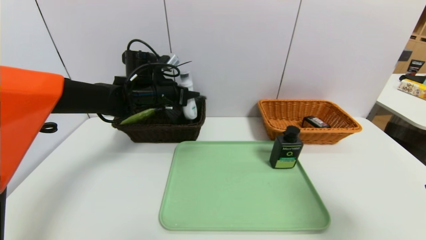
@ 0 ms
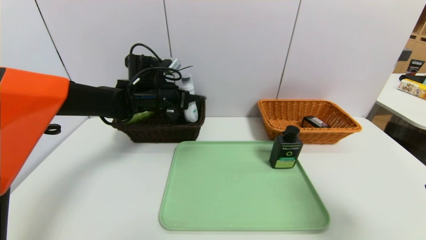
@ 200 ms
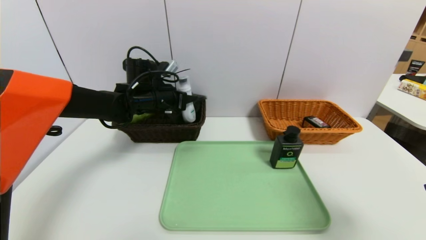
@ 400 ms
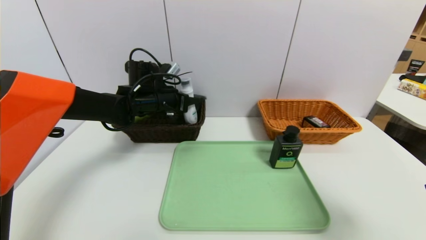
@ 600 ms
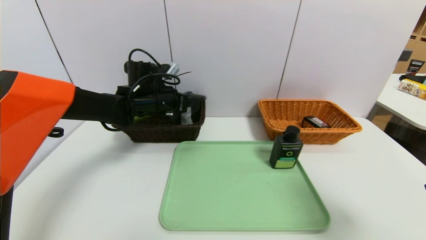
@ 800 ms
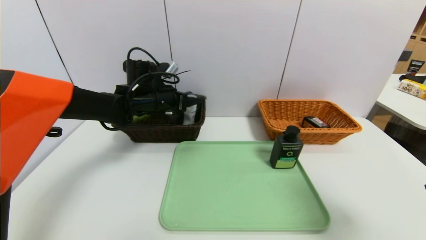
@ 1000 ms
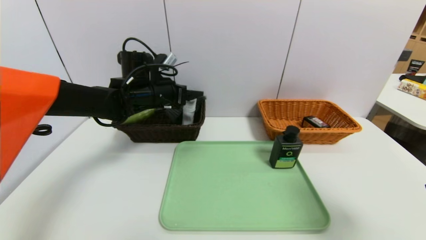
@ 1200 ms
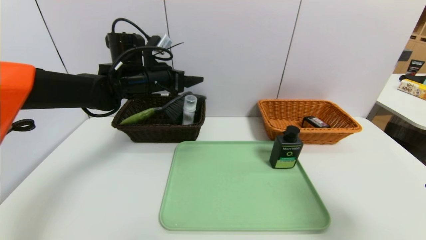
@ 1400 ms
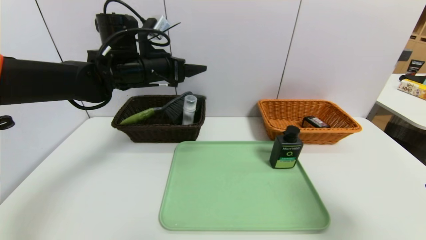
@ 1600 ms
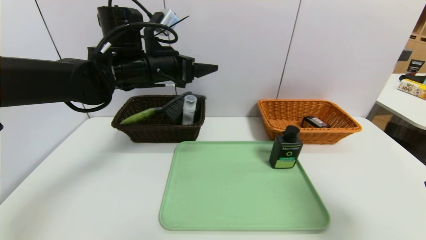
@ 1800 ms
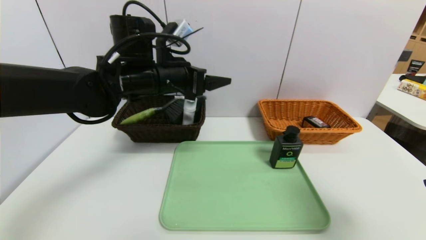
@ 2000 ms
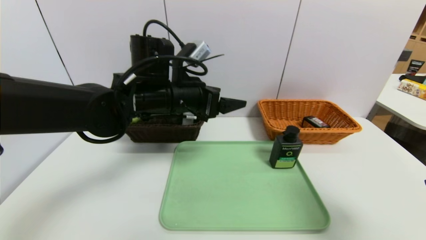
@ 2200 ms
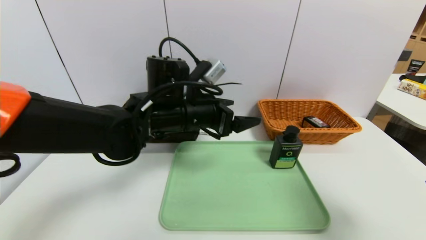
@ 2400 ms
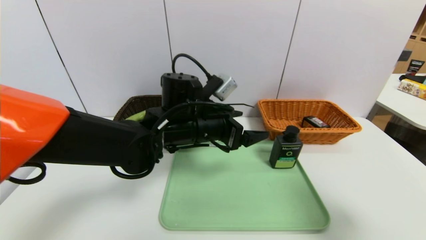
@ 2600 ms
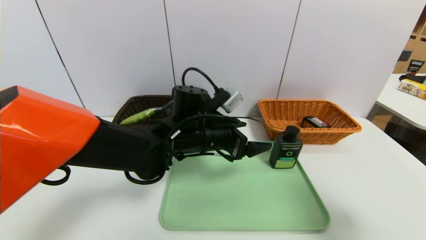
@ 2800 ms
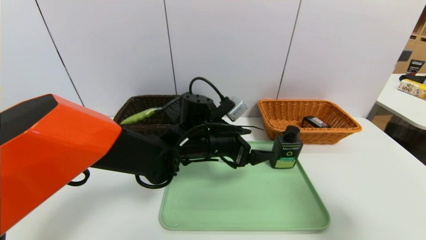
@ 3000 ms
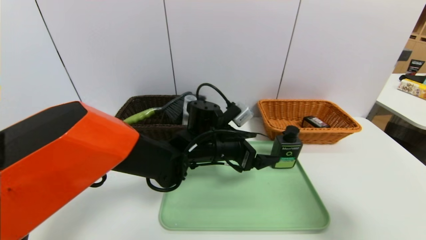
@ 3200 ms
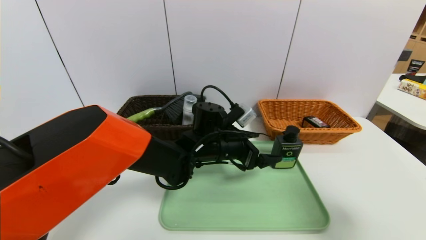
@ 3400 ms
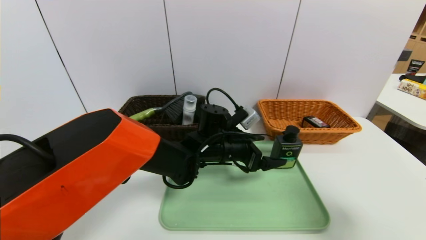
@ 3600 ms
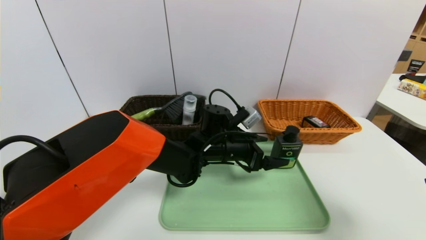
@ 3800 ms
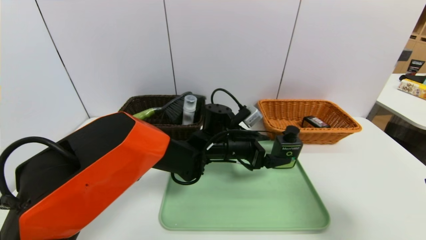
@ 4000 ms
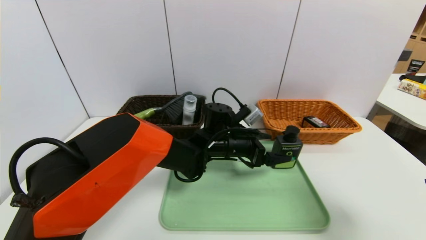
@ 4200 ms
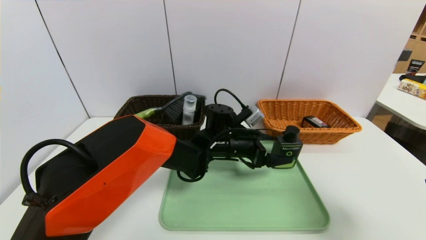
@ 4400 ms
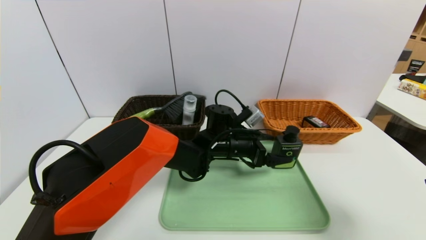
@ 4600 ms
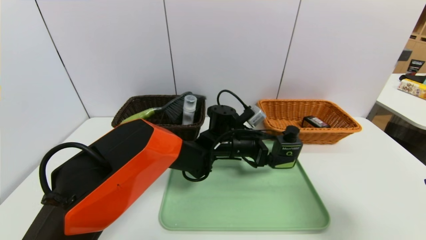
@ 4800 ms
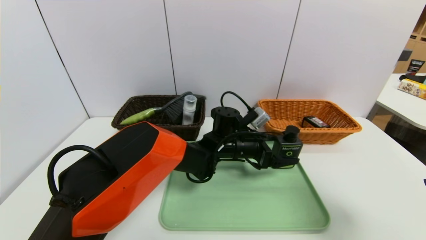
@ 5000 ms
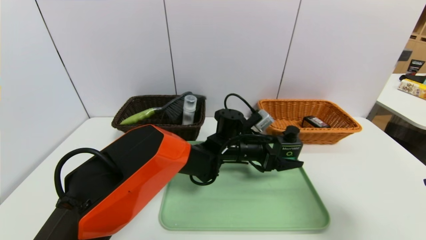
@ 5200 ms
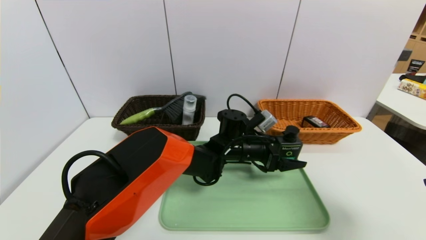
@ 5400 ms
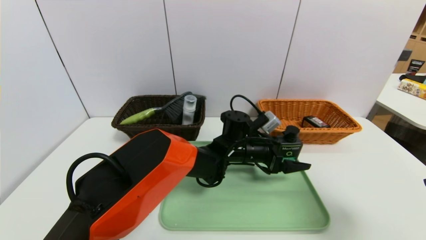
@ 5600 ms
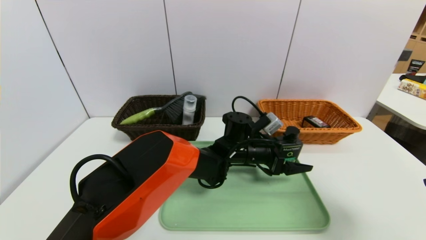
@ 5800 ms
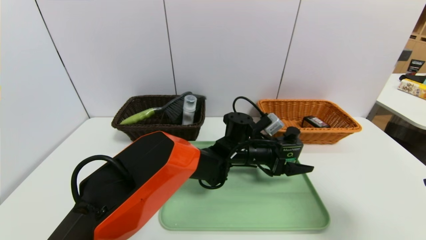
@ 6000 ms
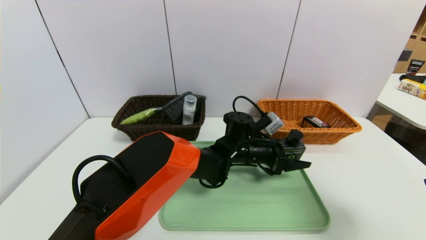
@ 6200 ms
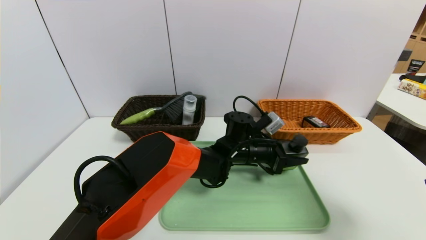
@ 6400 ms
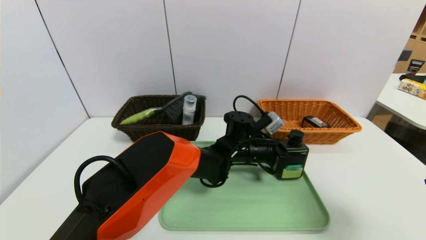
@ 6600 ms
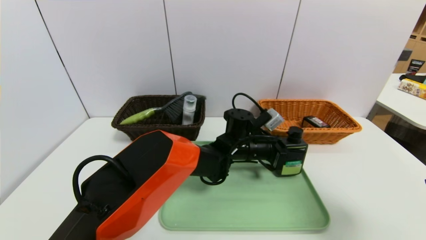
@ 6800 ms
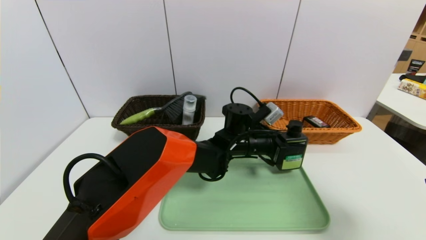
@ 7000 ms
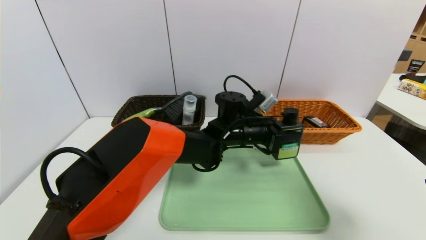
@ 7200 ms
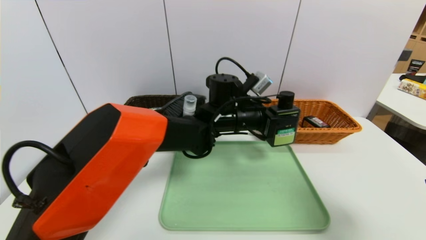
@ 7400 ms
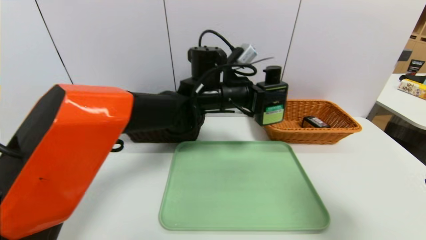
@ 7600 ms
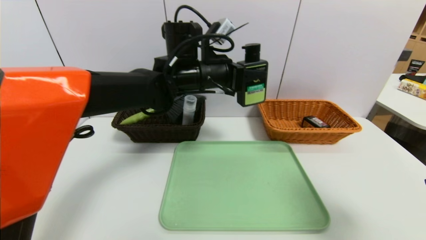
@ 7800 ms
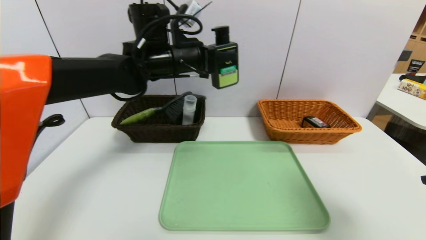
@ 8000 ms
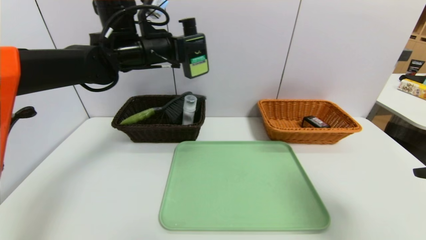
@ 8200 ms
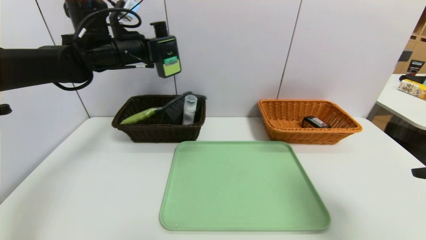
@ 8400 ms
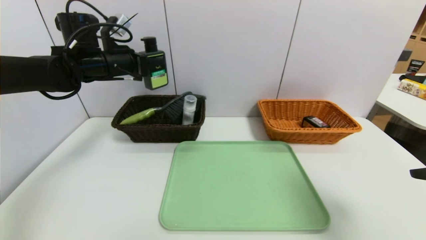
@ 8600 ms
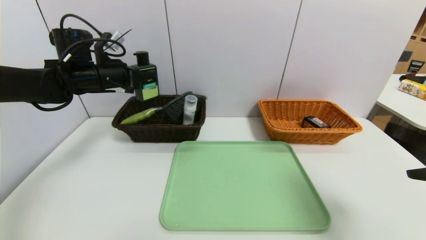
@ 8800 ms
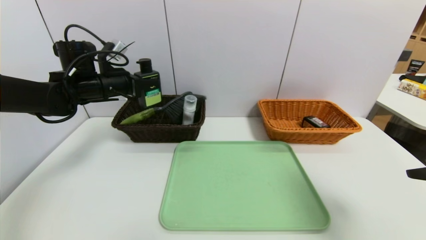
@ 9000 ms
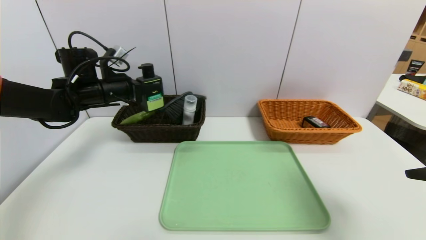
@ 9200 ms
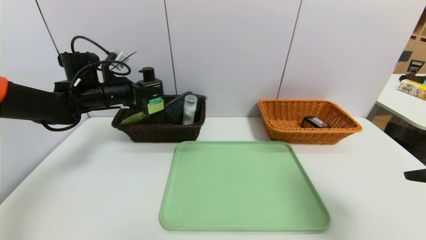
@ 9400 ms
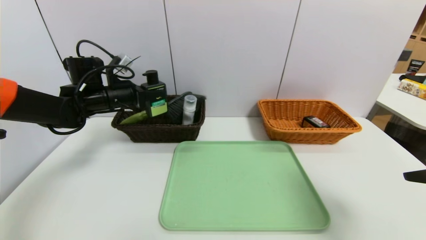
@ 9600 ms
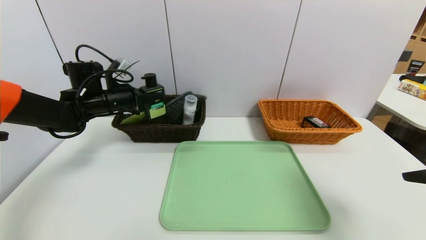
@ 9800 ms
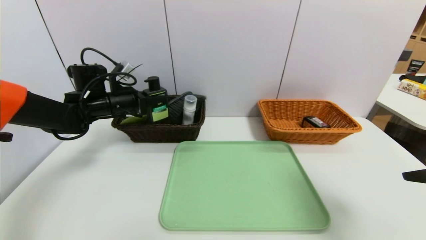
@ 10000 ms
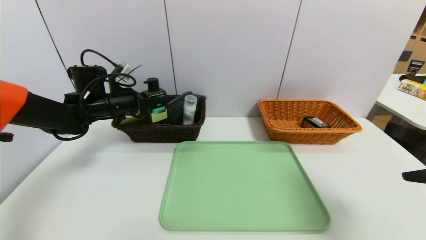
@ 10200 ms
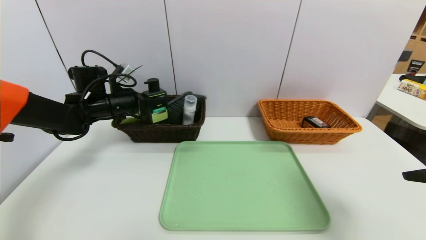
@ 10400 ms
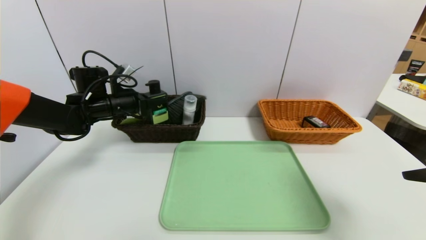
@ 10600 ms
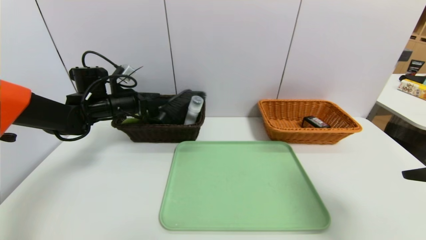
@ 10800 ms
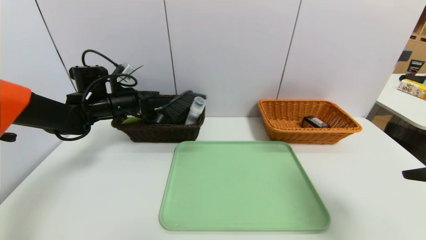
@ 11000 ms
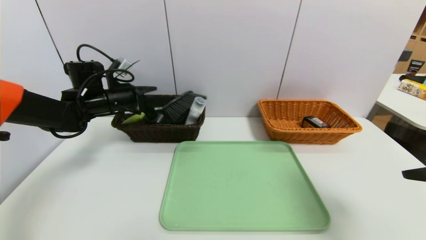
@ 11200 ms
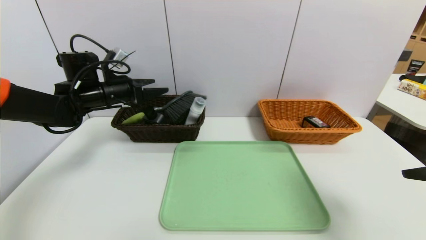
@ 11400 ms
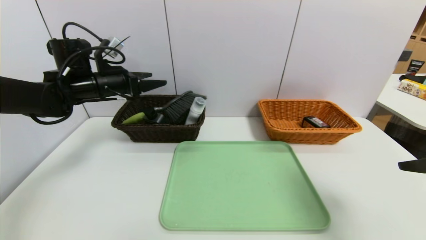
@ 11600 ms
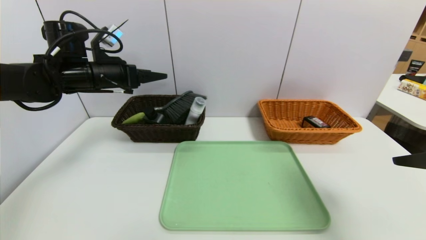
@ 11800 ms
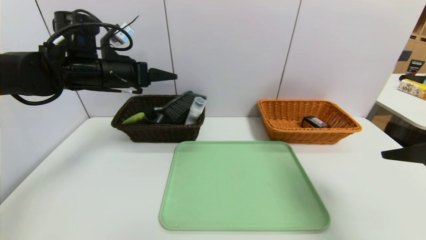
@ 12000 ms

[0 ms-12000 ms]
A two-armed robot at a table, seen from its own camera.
Task of the whole recording: place the food in the right basket with the right gripper, and place the non food items in the left basket with the left gripper.
Step, 1400 ms to 11400 ms: Grasp the hard cleanser and put it in the left basket.
0 ms to 1600 ms: The left gripper goes roughly 5 cm upward, and opens.
1600 ms to 3000 ms: The left gripper is displaced to the right, downward and backward by about 20 cm.
3000 ms to 4400 ms: The left gripper is displaced to the right by some 5 cm.
4400 ms to 6000 ms: The left gripper shifts by roughly 5 cm.
6000 ms to 7600 ms: The left gripper is displaced upward and to the left by roughly 15 cm, and closes up.
7600 ms to 9000 ms: The left gripper shifts about 25 cm to the left.
9000 ms to 10400 ms: The left gripper shifts approximately 5 cm downward.
10400 ms to 12000 ms: The left gripper heads upward and backward, covering about 10 cm, and opens up.

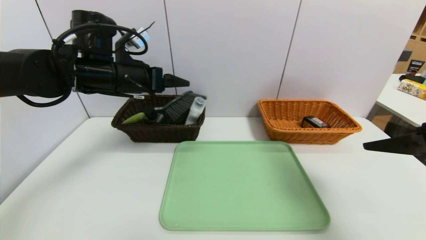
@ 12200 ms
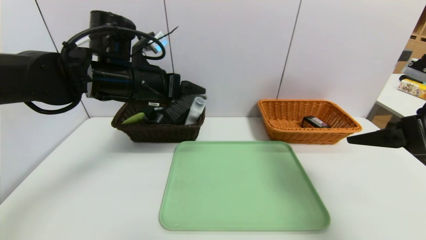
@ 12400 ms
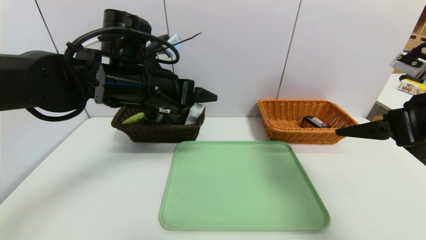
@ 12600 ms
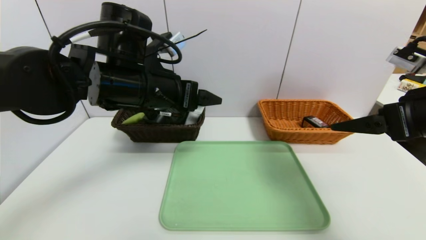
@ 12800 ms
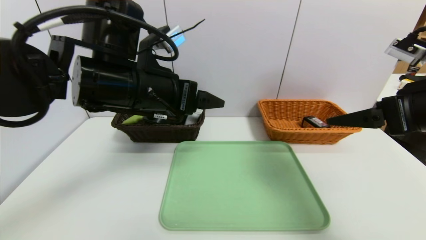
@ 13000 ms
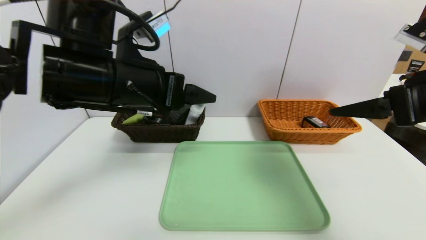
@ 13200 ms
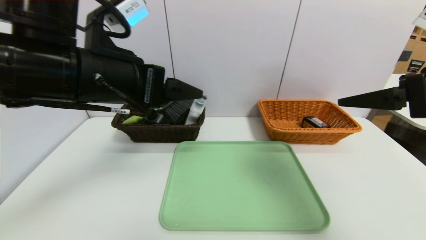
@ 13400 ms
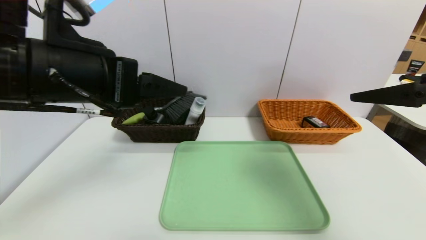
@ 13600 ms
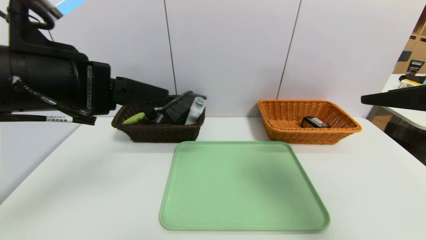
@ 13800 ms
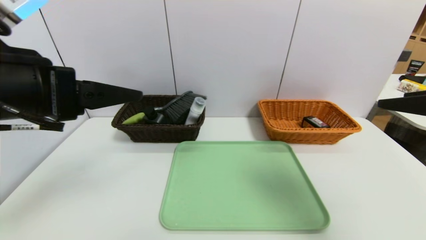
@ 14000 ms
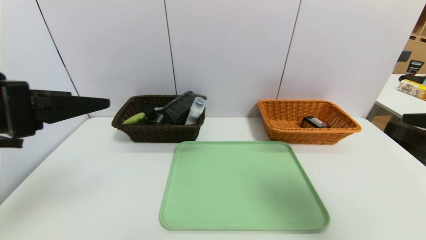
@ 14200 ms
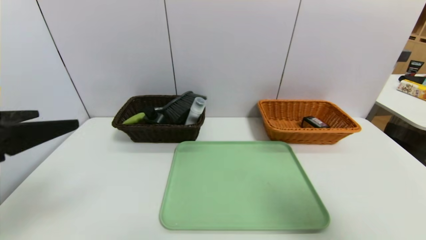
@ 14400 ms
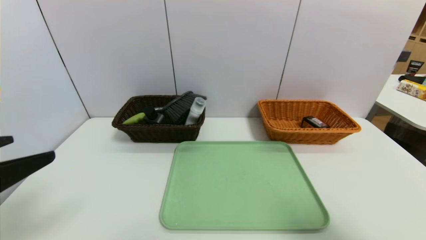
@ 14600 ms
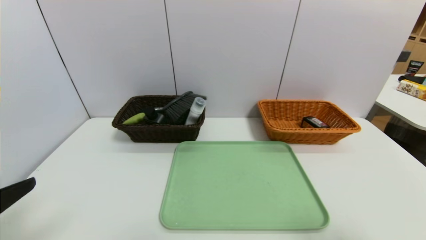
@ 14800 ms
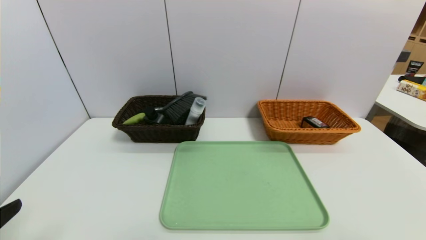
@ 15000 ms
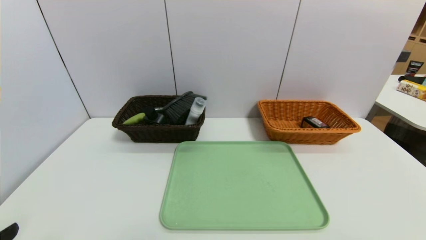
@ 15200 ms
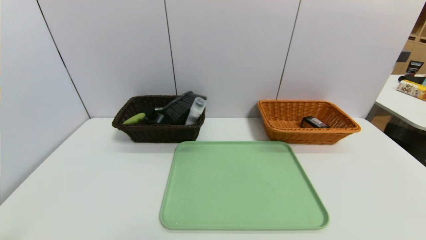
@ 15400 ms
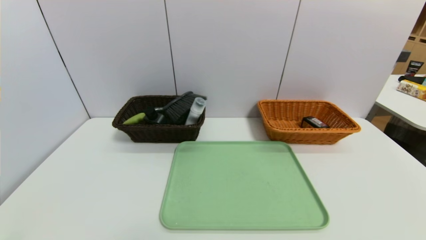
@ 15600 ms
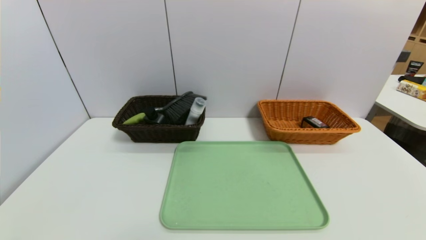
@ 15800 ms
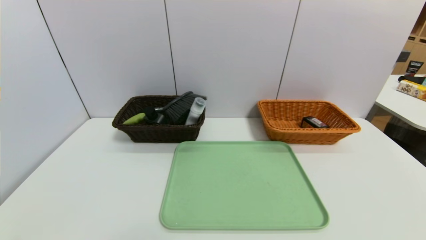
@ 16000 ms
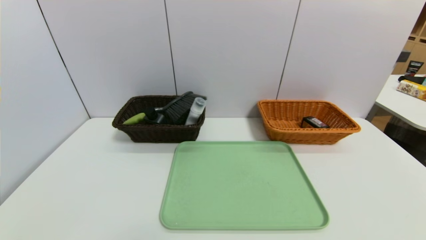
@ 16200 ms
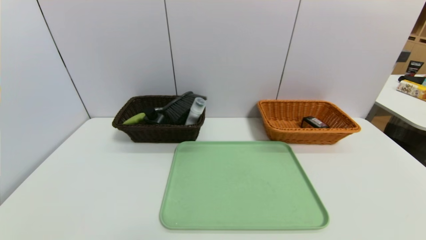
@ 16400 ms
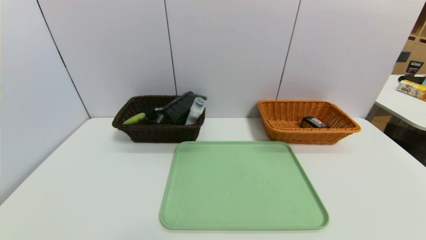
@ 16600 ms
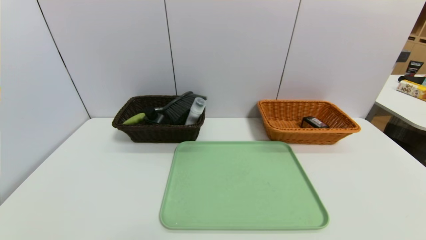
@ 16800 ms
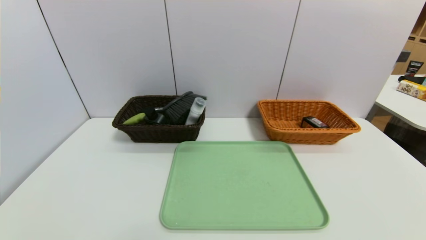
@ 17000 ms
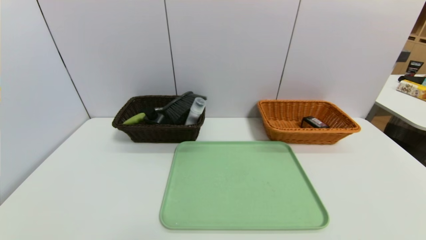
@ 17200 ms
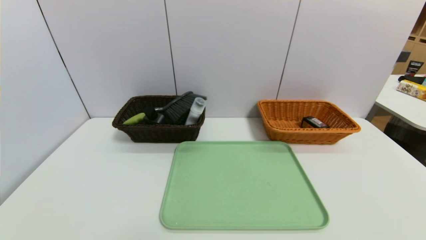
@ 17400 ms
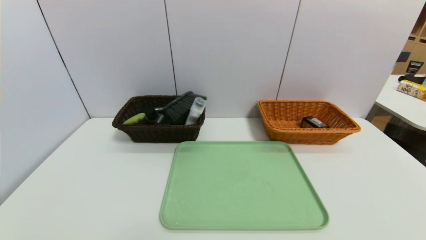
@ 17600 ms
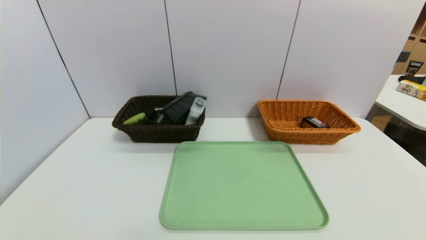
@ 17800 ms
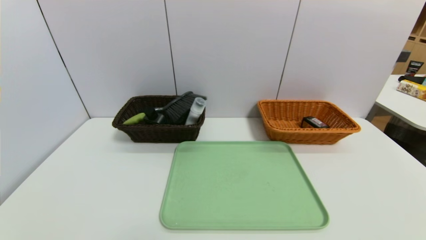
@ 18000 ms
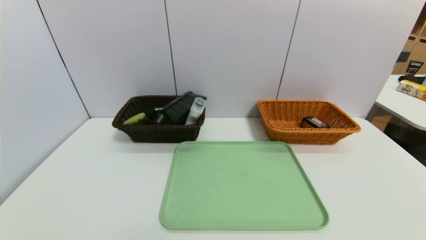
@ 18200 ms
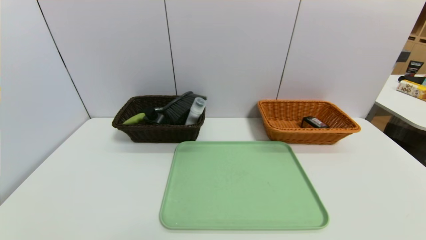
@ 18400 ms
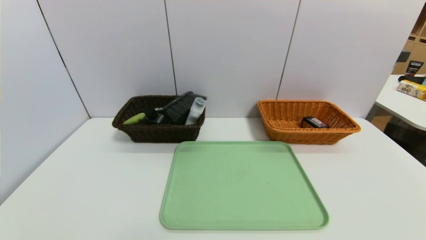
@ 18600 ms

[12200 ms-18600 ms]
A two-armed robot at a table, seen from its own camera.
Task of the whole recording: place the food in the right basket with the right gripper, and place the non food items in the left basket with the left gripper.
12200 ms to 13800 ms: The left gripper is displaced backward by roughly 15 cm, while the right gripper travels upward by approximately 5 cm.
13800 ms to 15400 ms: The left gripper is displaced backward, downward and to the left by roughly 25 cm, while the right gripper goes approximately 20 cm backward and downward.
